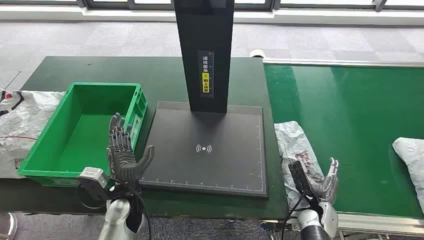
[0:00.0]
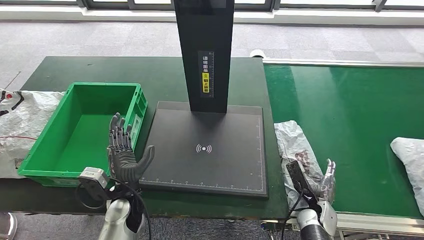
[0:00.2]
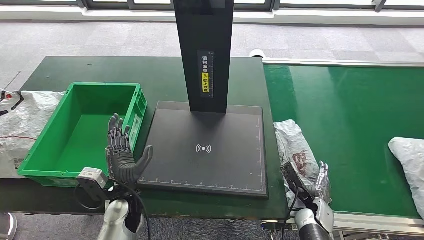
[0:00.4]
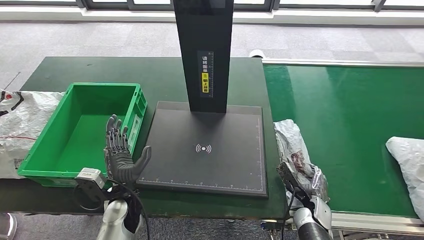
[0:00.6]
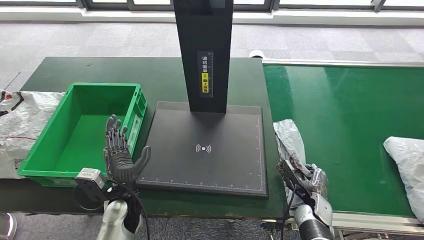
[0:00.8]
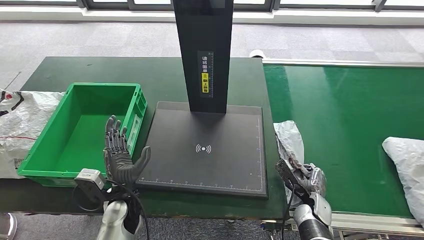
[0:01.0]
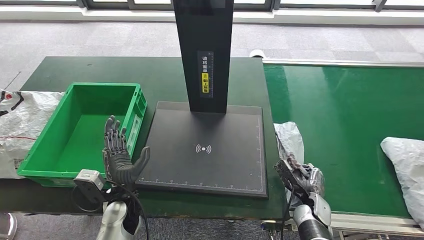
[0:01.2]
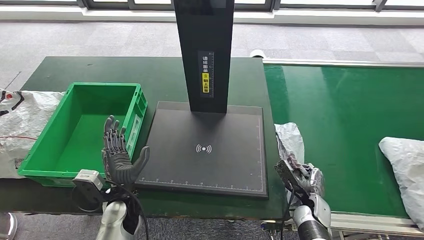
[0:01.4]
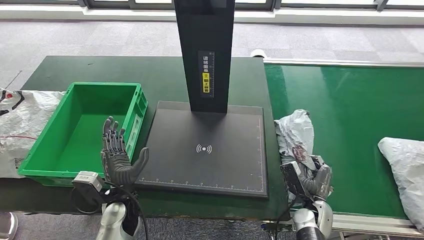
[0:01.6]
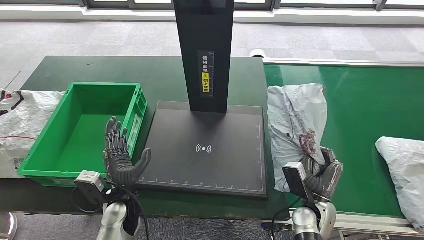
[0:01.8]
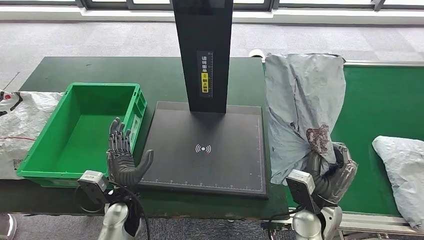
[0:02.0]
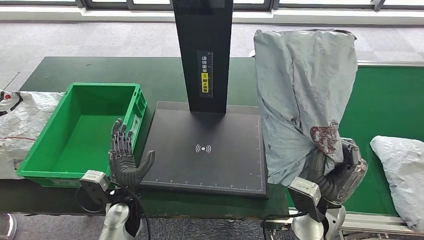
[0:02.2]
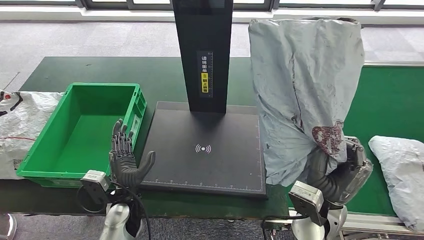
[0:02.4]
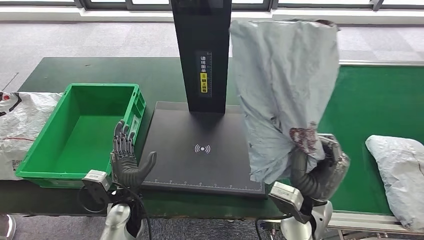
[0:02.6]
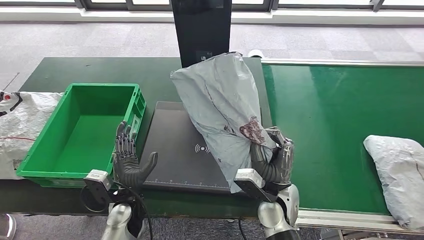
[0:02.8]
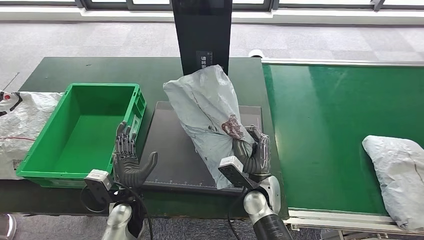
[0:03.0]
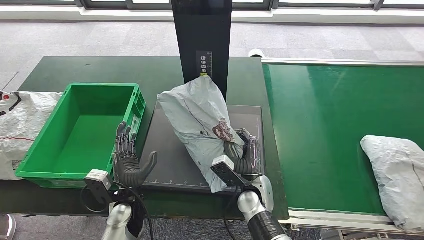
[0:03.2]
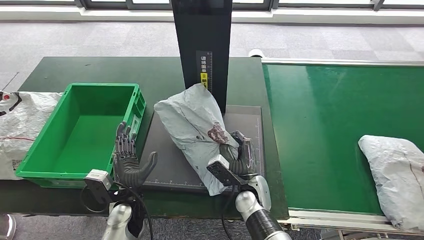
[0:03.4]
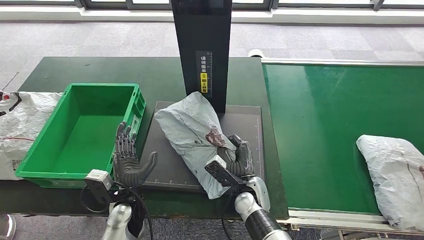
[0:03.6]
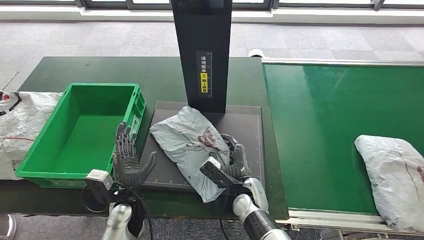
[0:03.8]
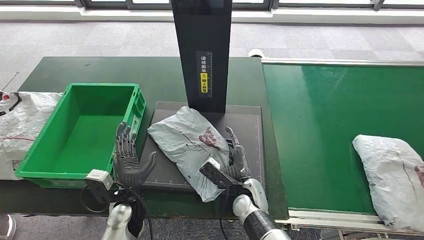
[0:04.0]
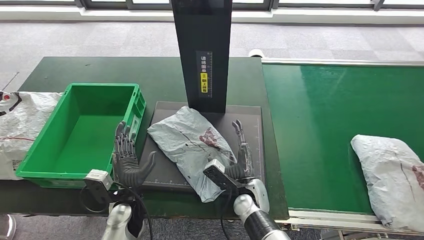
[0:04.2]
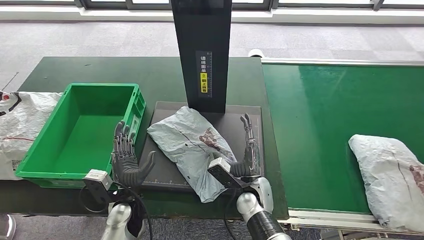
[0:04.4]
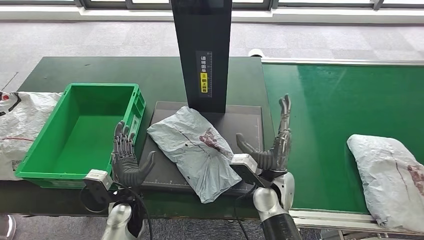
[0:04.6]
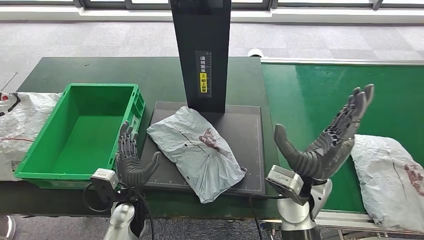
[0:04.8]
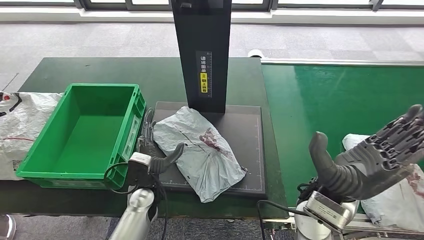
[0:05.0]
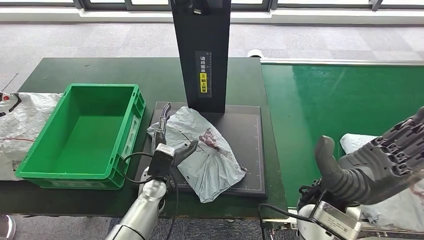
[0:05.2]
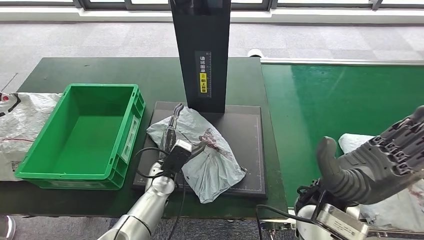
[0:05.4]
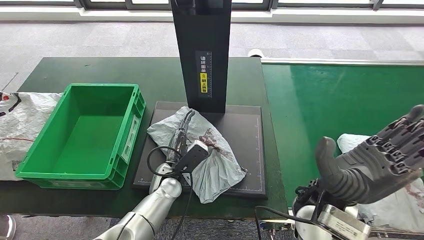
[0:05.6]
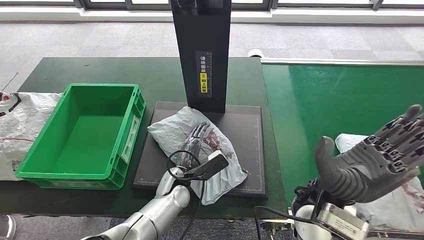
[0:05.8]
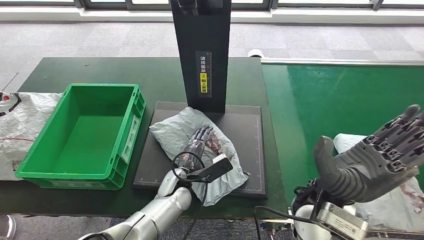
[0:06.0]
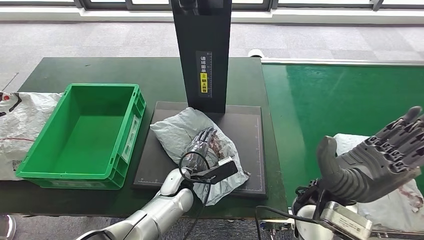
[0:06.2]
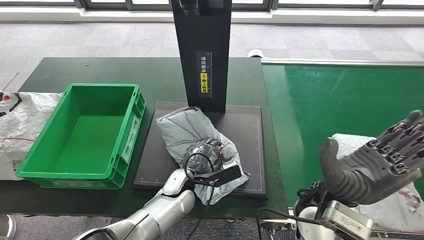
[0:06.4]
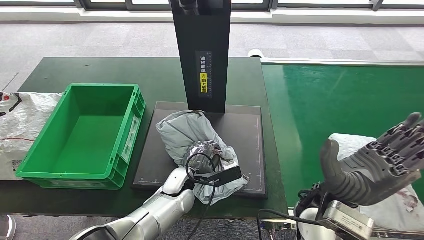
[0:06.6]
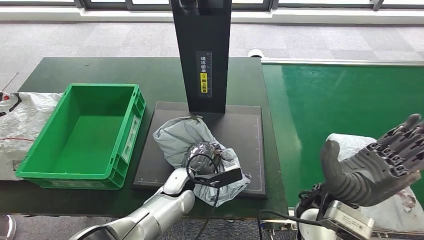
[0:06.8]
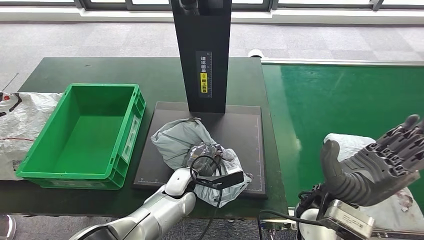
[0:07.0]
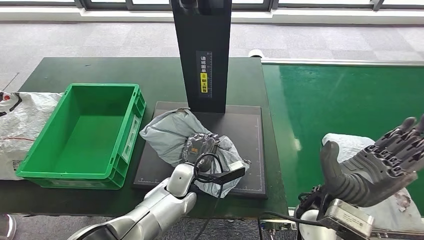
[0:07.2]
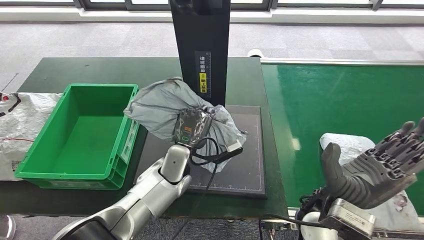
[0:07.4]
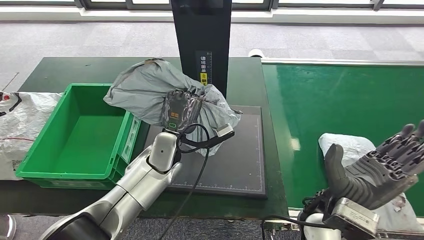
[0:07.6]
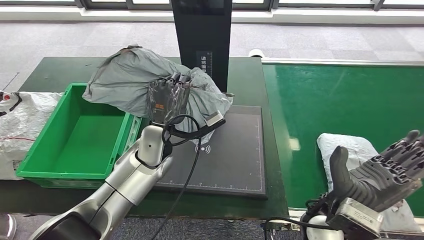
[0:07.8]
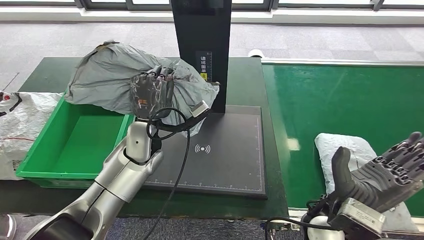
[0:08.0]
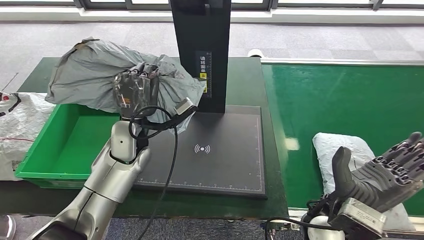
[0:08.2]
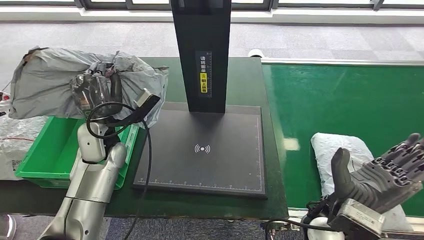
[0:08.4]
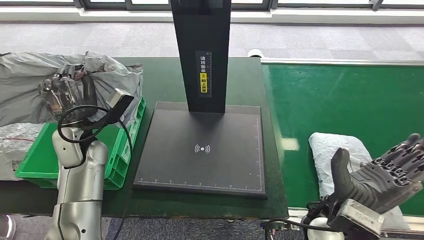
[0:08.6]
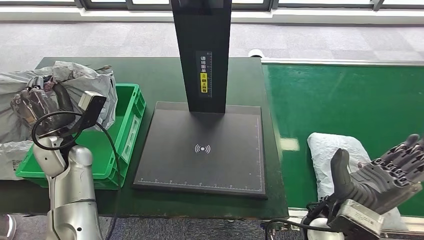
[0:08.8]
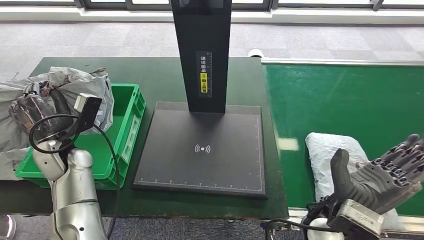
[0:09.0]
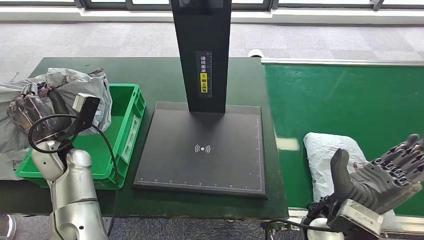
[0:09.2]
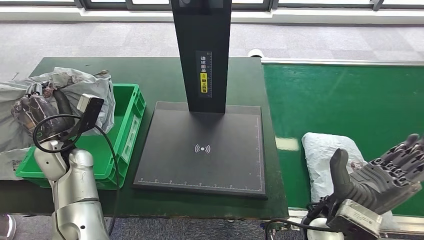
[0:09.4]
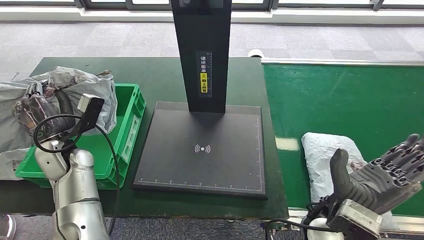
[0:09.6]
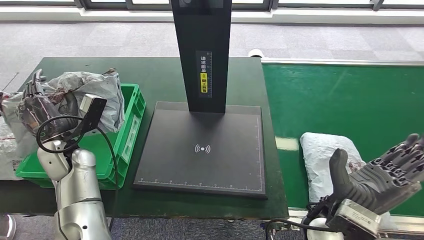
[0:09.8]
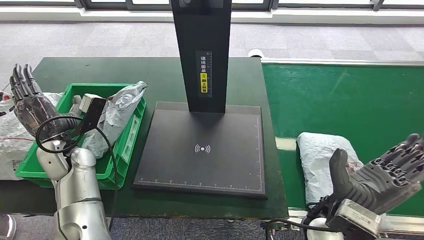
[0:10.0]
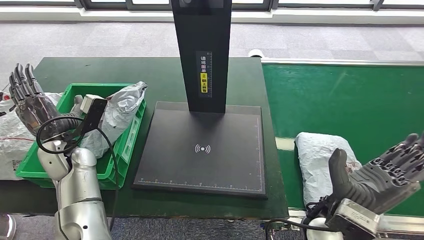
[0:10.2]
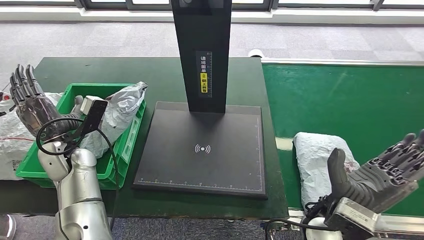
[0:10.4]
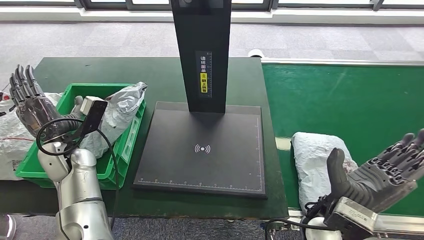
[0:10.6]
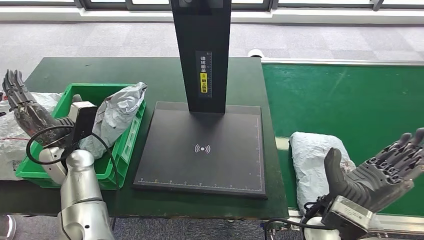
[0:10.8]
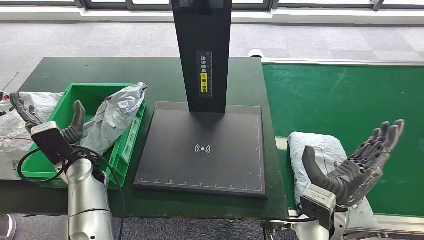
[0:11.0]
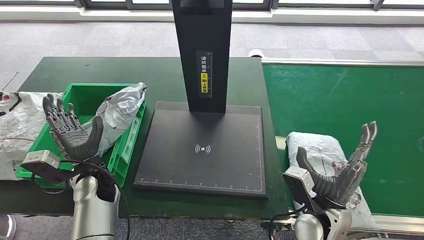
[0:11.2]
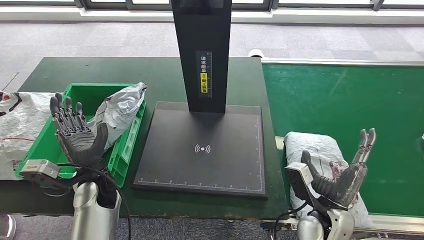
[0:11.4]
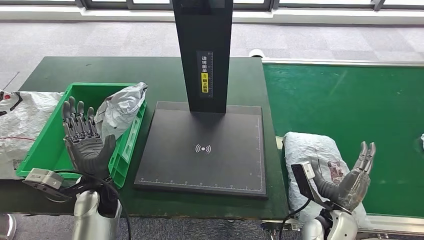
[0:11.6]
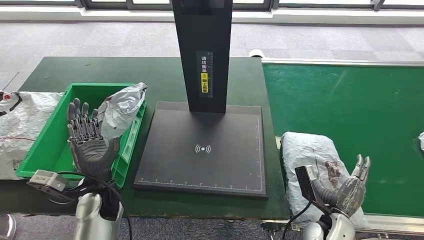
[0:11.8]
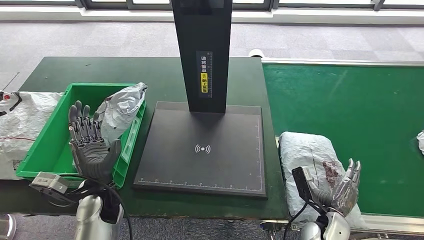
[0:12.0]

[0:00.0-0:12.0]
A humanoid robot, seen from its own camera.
Step, 0:00.0 to 0:02.2: Take the parcel off the conveyor belt.
Step, 0:02.4 to 0:05.8: Place the parcel onto the inbound machine.
Step, 0:06.0 to 0:08.2: Pick up the parcel from the inbound machine.
Step, 0:08.4 to 0:11.4: Put the parcel inside the courier box.
0:09.0 to 0:10.4: Both hands stay put.
0:10.4 to 0:12.0: The left hand travels to the right, backward and downward by about 15 cm, while the right hand travels downward by about 15 cm.

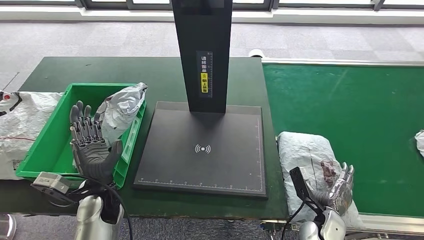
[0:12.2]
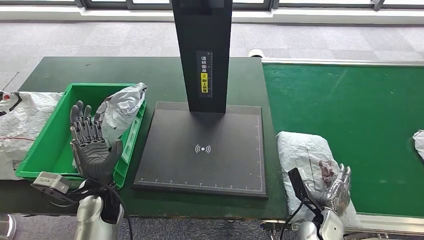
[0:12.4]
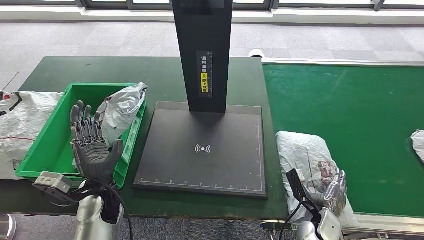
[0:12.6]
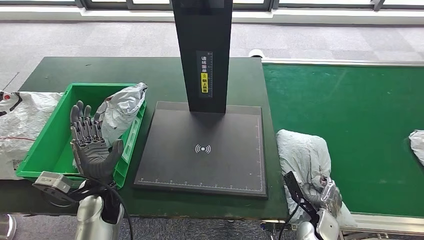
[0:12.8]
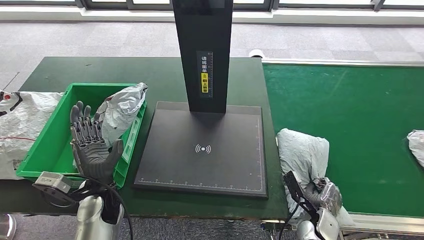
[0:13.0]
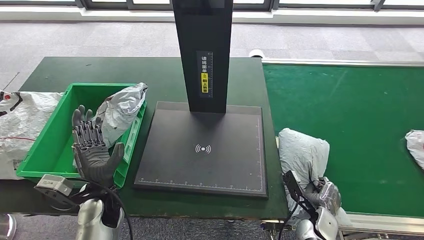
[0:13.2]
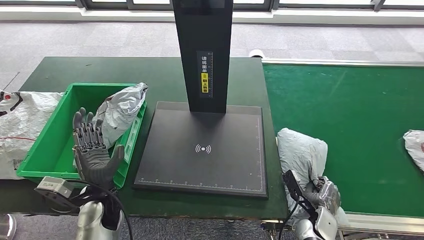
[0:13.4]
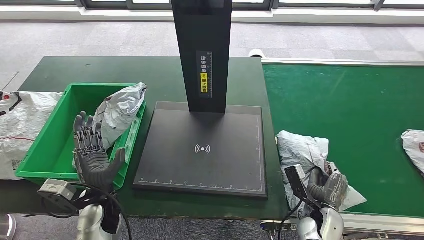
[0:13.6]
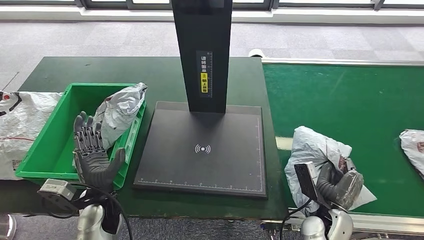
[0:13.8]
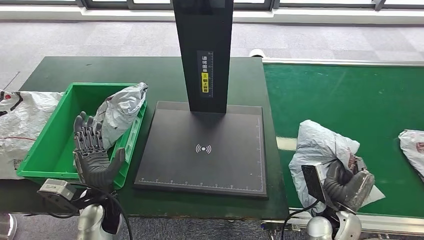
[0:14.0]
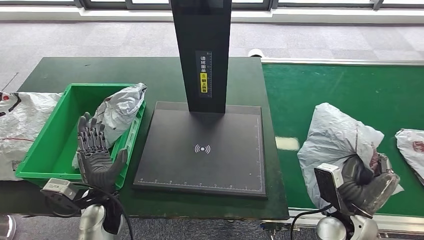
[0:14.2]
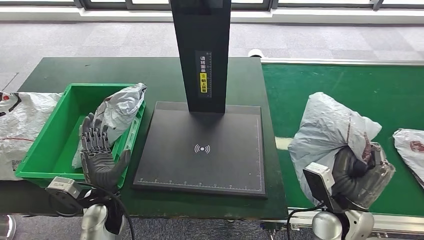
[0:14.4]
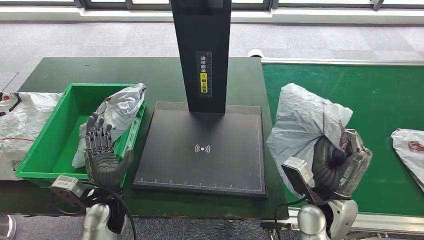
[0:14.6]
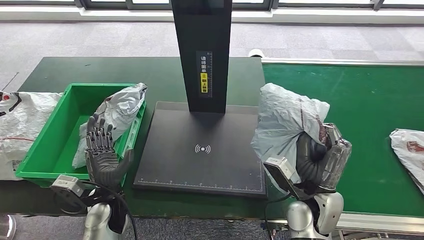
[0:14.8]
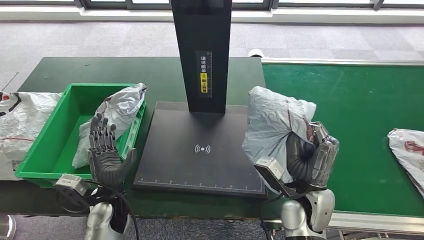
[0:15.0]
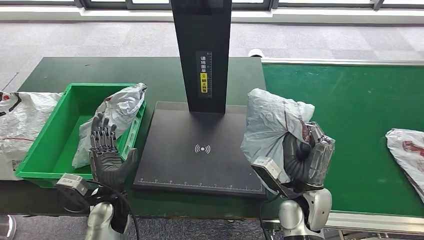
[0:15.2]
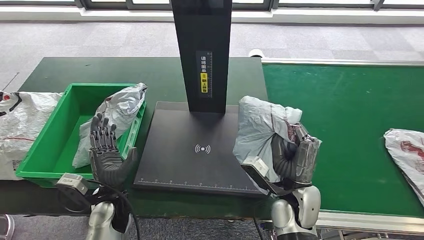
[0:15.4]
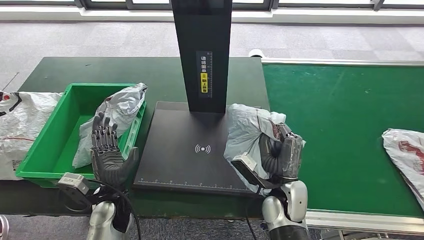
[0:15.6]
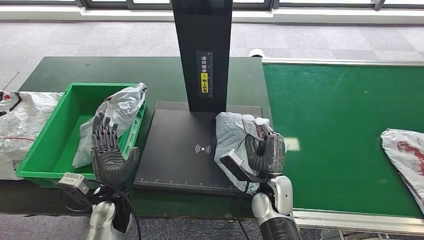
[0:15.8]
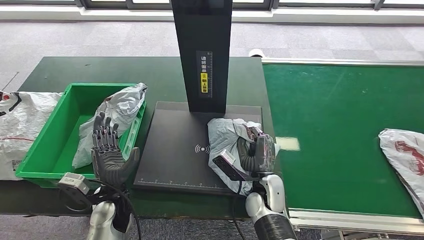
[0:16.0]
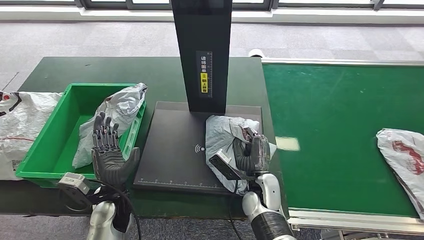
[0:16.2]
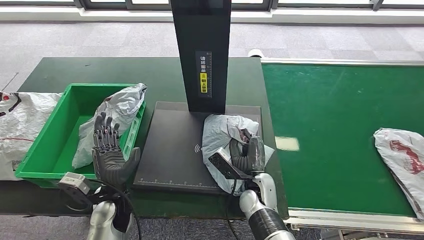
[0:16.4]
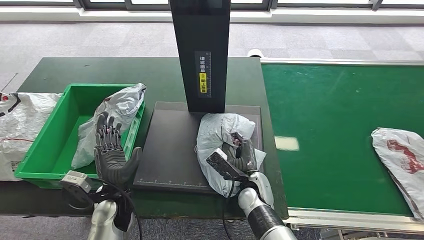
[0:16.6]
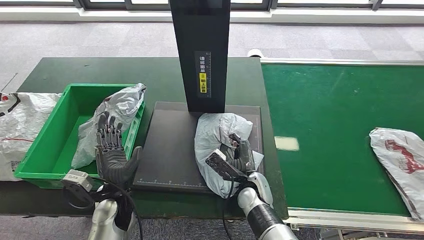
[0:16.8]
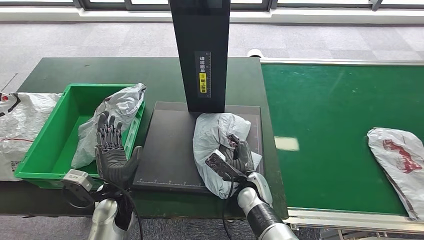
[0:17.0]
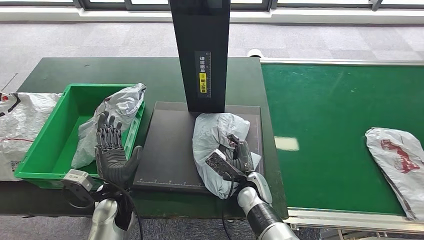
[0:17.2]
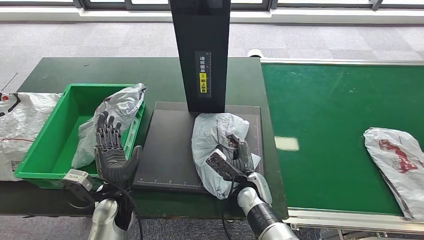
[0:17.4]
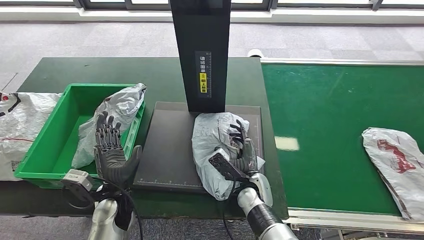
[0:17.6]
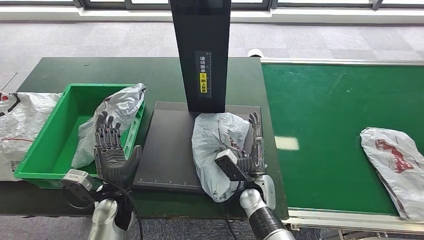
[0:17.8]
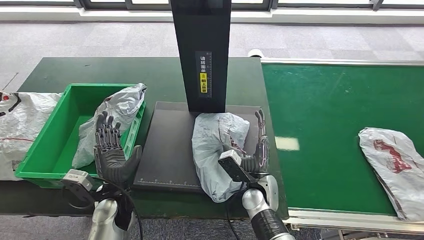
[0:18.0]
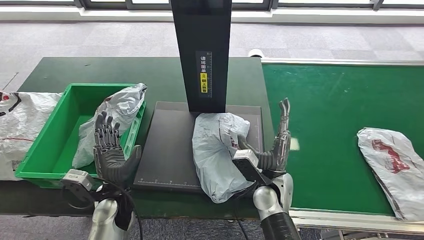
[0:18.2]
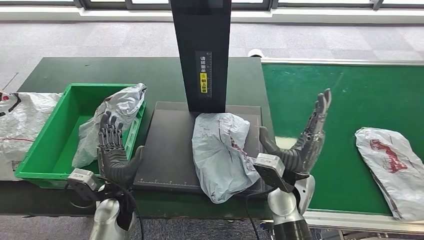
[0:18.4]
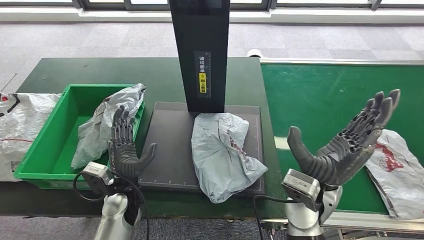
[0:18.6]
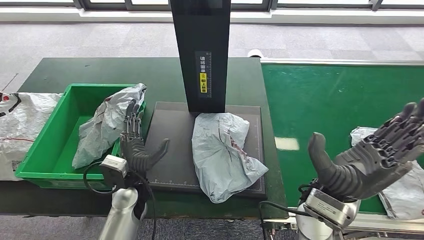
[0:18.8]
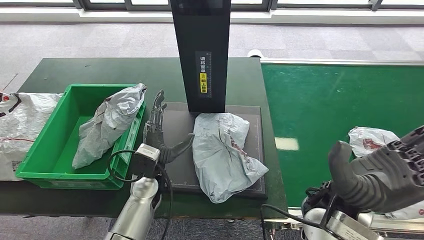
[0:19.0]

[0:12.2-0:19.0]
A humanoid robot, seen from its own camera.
Step, 0:13.2 to 0:14.0: Pick up the parcel from the conveyor belt.
0:12.2 to 0:13.6: The hands stay close to where they were, moving slightly.
0:13.6 to 0:15.0: The right hand shifts some 15 cm upward and to the left.
0:15.0 to 0:16.2: The right hand travels to the left and downward by some 10 cm.
